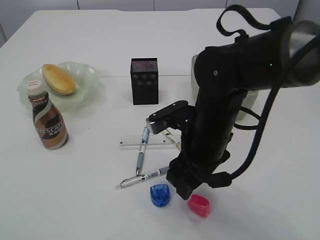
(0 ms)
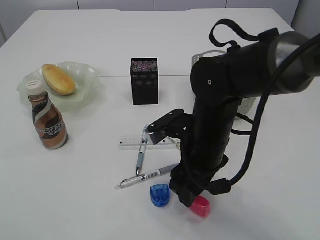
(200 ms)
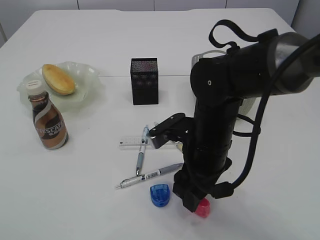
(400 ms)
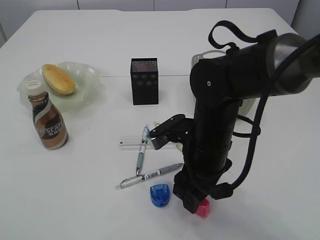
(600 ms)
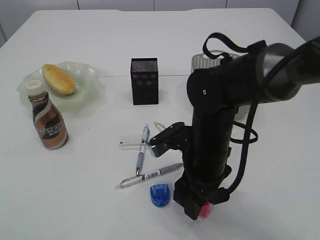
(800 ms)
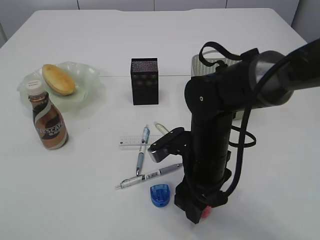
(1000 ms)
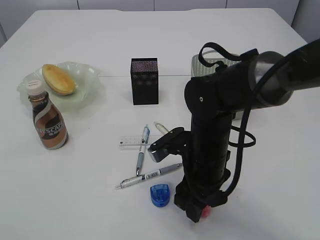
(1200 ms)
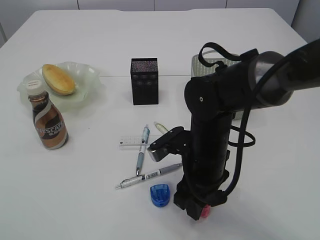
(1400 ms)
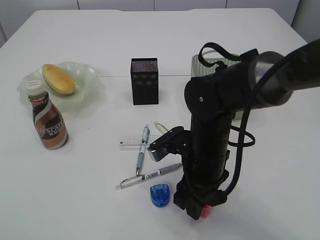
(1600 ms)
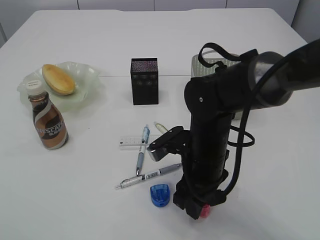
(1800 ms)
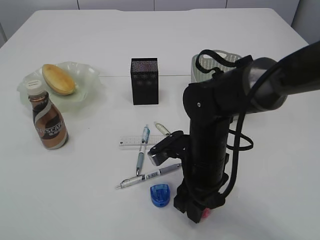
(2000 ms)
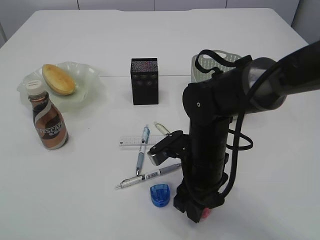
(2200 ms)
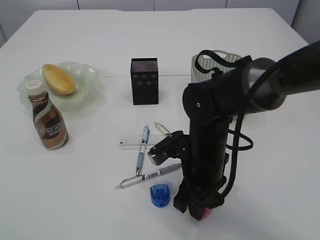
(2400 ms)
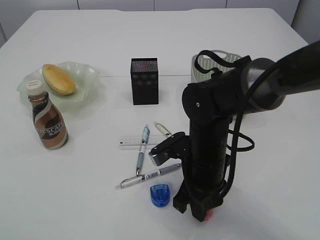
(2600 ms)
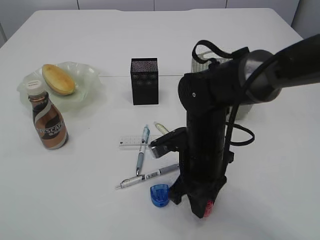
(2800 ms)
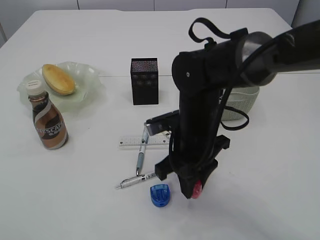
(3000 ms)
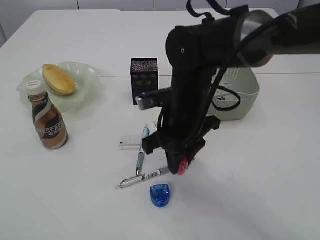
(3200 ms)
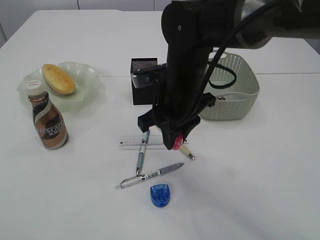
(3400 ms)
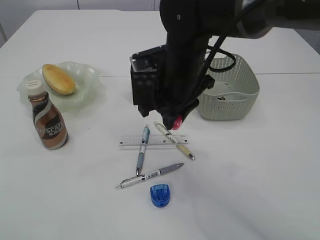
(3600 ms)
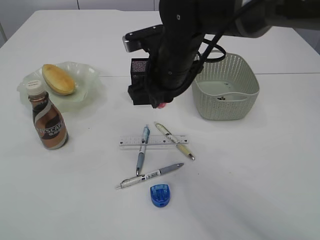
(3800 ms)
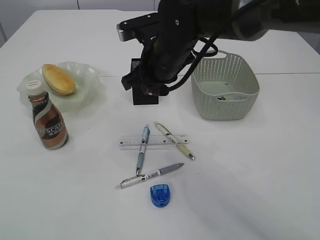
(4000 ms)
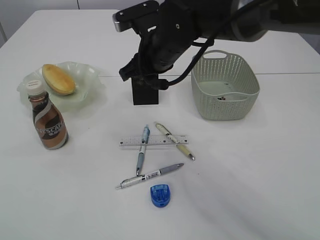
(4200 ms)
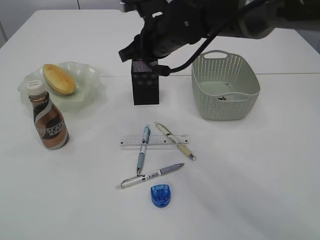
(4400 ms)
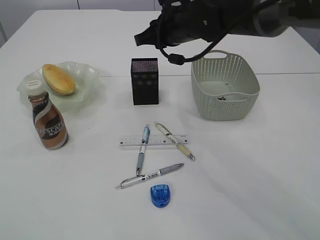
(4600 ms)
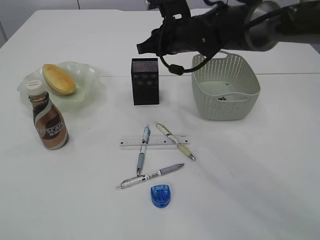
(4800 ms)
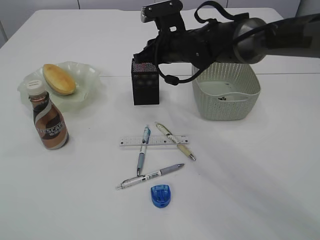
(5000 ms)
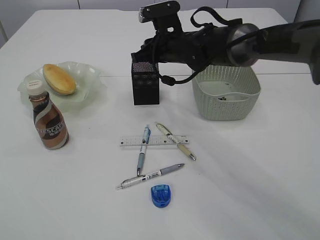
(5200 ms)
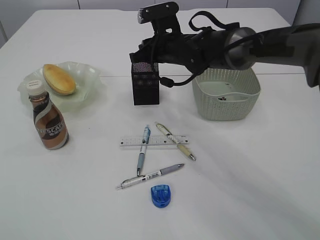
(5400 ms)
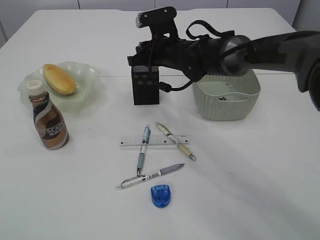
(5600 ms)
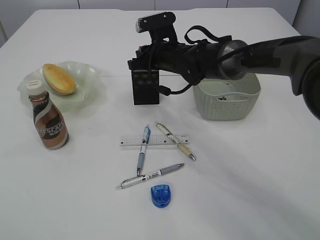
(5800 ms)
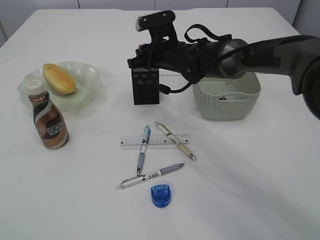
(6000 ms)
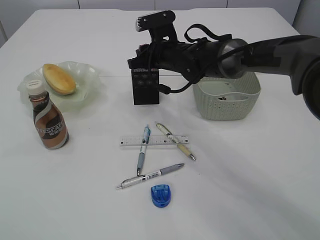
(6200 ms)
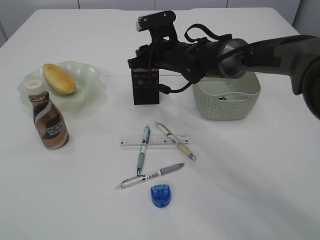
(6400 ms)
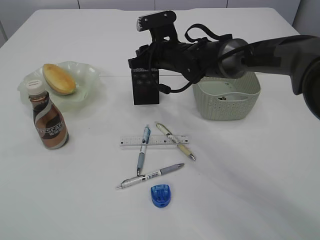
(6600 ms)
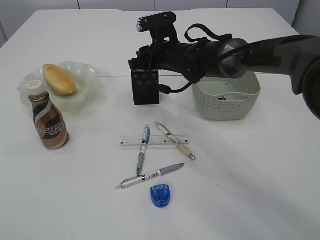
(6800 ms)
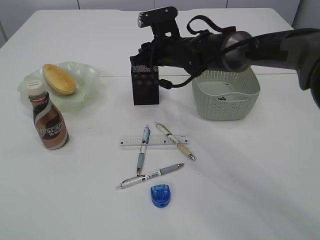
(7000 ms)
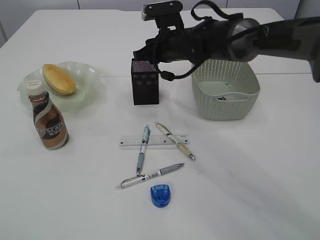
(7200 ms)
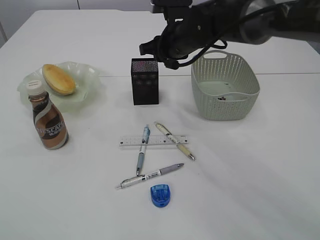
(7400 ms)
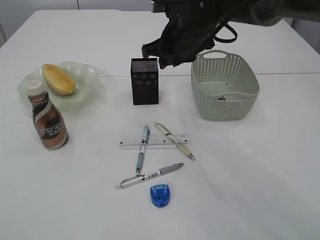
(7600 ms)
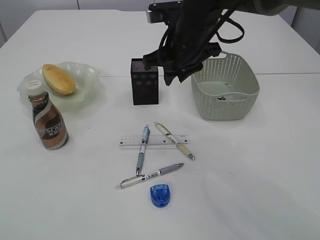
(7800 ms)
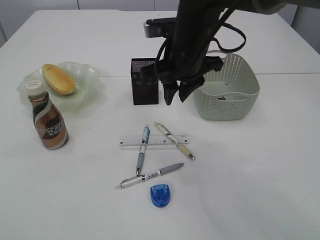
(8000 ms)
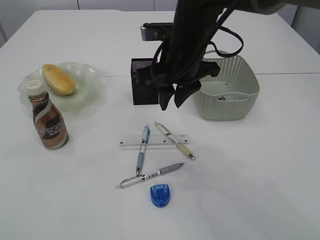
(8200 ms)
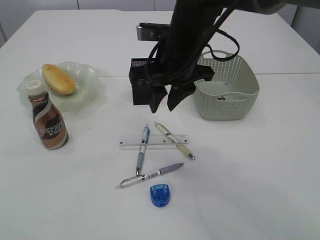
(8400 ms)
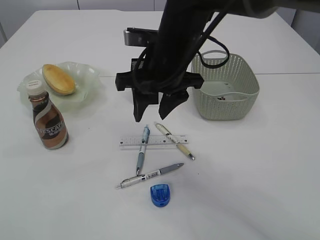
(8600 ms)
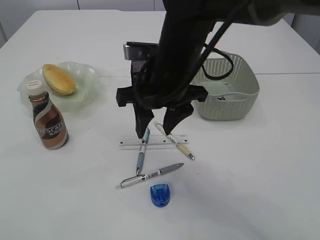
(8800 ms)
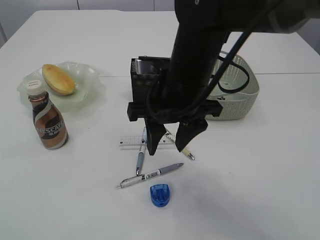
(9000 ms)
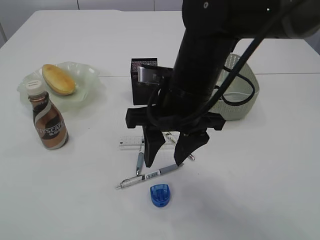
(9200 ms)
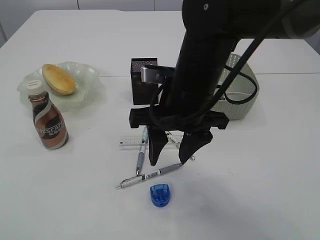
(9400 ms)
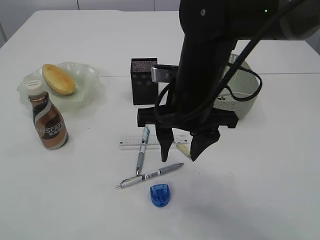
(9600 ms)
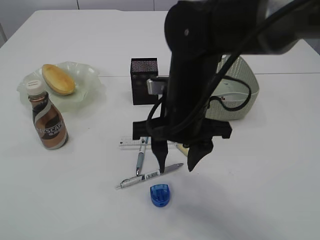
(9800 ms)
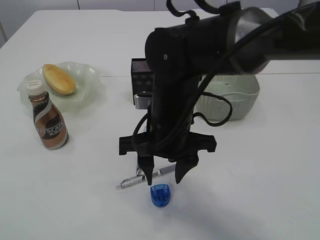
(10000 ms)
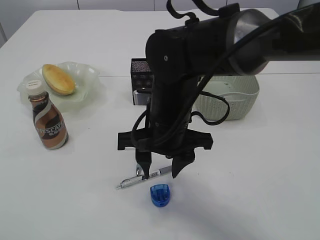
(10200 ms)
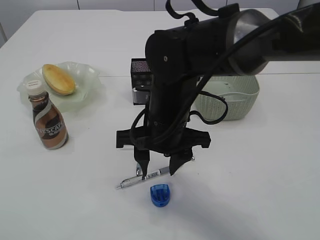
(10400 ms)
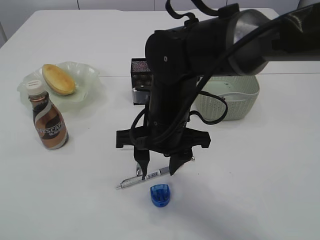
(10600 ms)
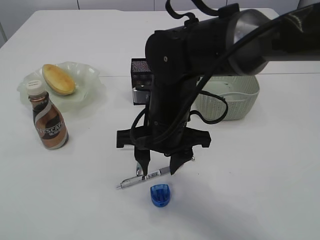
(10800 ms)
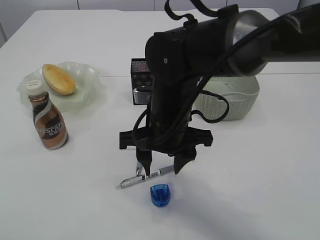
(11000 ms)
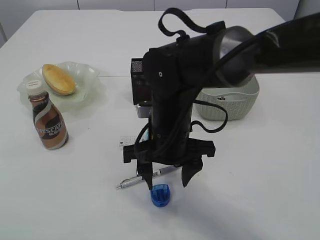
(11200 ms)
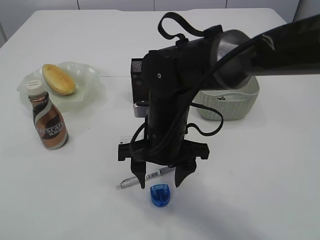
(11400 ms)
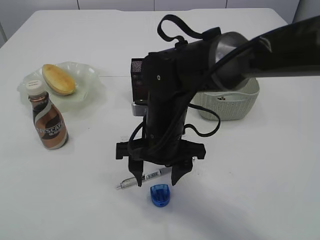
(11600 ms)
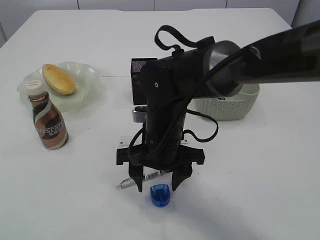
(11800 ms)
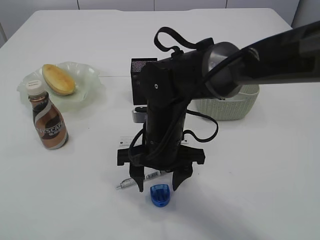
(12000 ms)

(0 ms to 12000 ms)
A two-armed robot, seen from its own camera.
Step, 0 ms - 3000 ms: Pick up the red pencil sharpener.
Step, 3200 ms - 7400 ms: Place the red pencil sharpener into the pen holder.
0 ms - 1600 ms: The grippers make only small movements.
1600 ms - 3000 ms: The right gripper closes.
3000 ms - 4400 ms: The right gripper travels forward and upward by roughly 15 cm.
4400 ms - 6000 ms: The right gripper moves downward and forward, about 10 cm.
6000 ms - 7600 ms: The right gripper travels upward and backward by roughly 10 cm.
7600 ms - 9000 ms: The right gripper heads backward, covering about 15 cm.
9000 ms - 10400 ms: The right gripper changes place by roughly 5 cm.
10400 ms - 12000 ms: The grippers stay close to where they were, moving slightly.

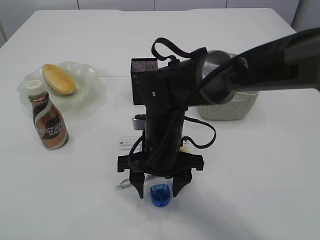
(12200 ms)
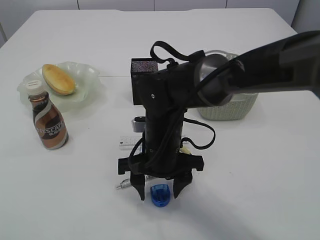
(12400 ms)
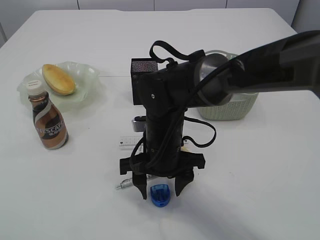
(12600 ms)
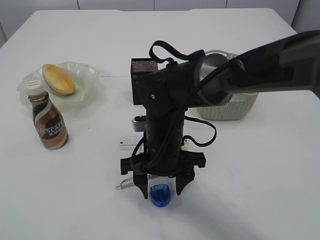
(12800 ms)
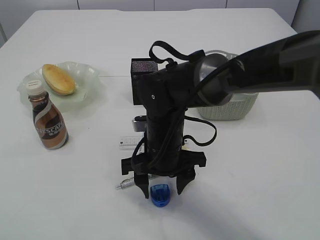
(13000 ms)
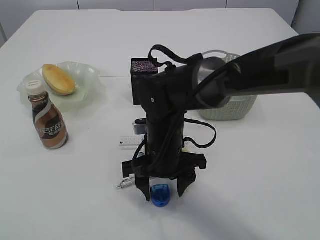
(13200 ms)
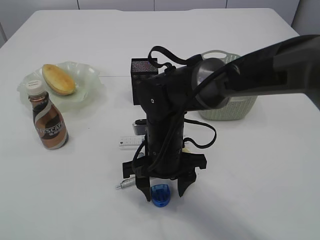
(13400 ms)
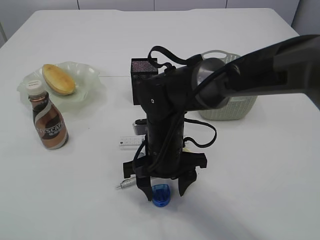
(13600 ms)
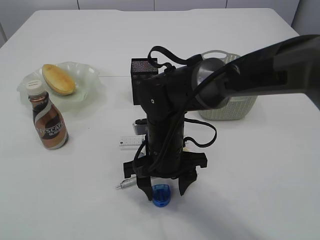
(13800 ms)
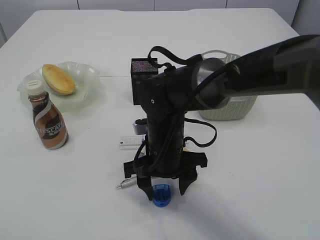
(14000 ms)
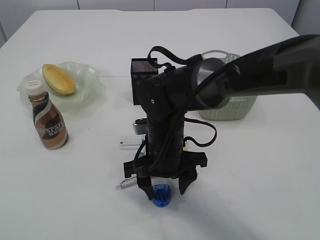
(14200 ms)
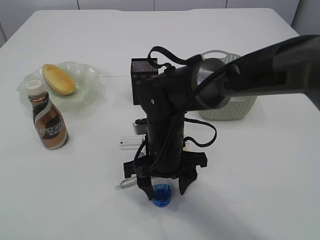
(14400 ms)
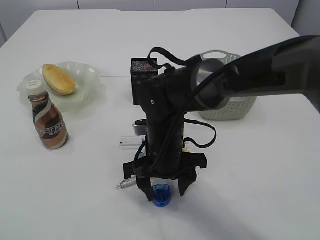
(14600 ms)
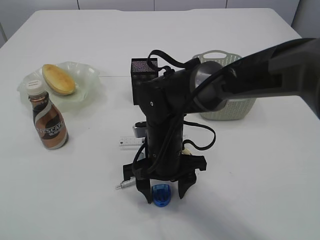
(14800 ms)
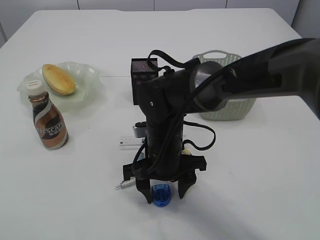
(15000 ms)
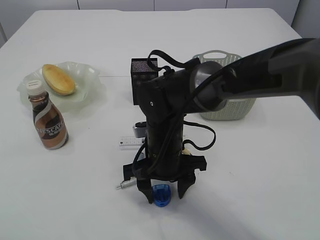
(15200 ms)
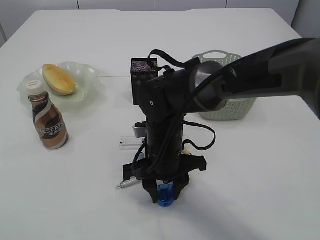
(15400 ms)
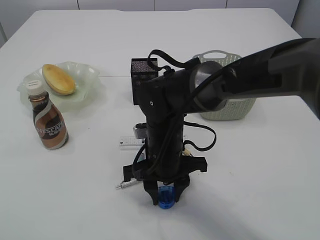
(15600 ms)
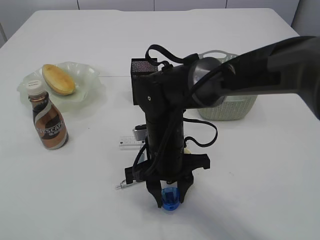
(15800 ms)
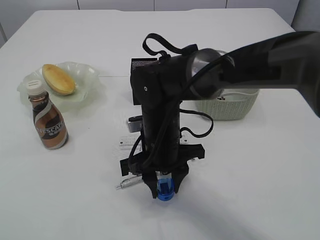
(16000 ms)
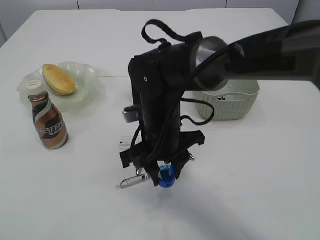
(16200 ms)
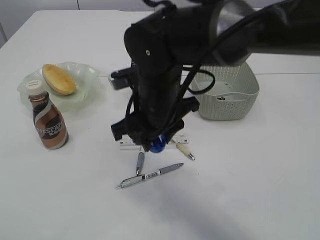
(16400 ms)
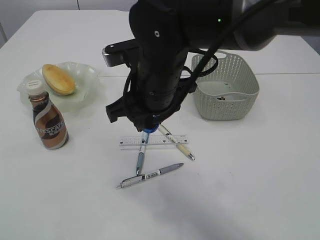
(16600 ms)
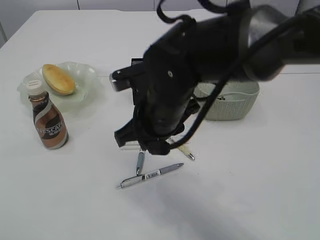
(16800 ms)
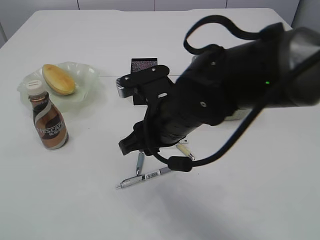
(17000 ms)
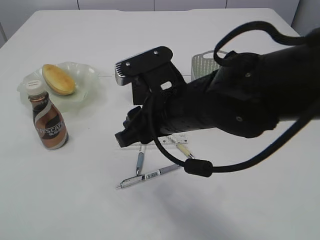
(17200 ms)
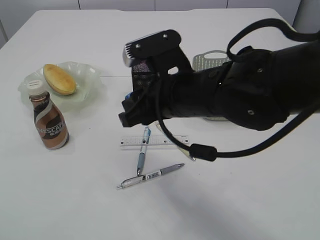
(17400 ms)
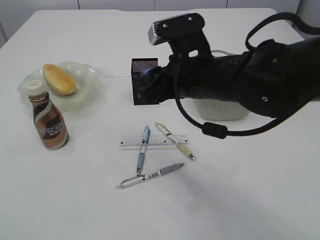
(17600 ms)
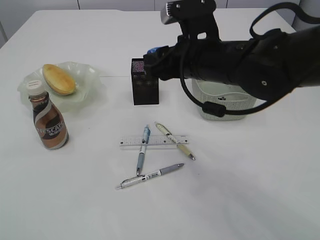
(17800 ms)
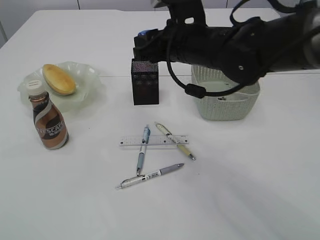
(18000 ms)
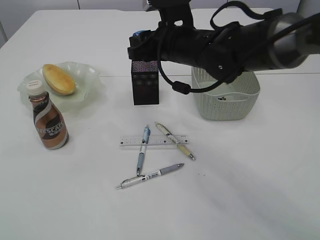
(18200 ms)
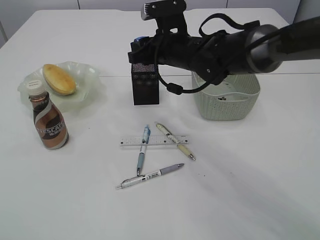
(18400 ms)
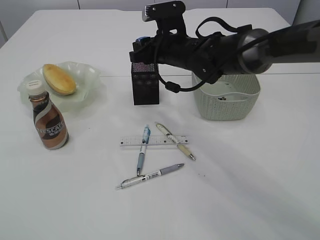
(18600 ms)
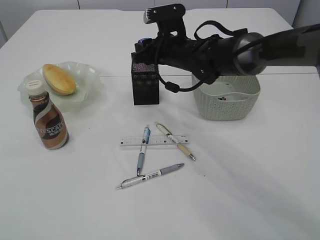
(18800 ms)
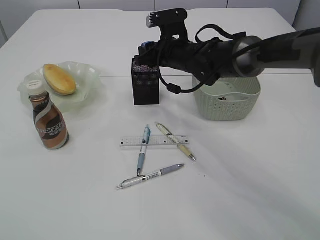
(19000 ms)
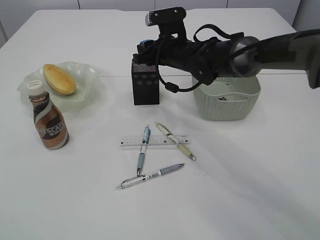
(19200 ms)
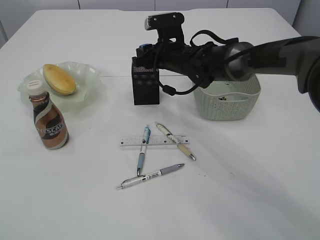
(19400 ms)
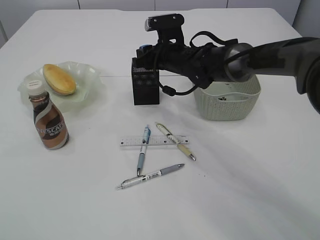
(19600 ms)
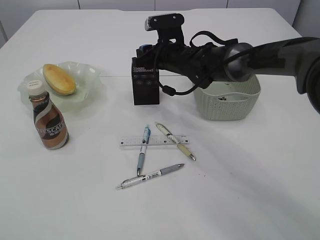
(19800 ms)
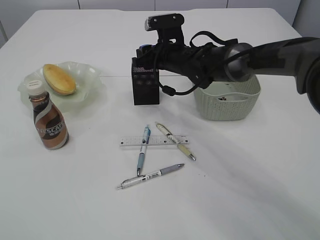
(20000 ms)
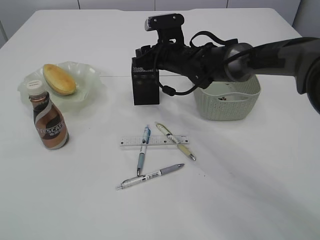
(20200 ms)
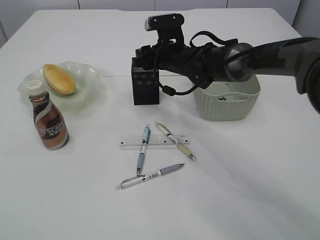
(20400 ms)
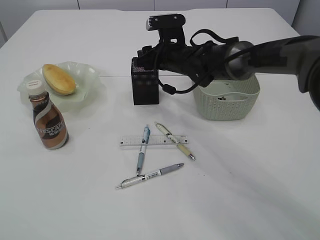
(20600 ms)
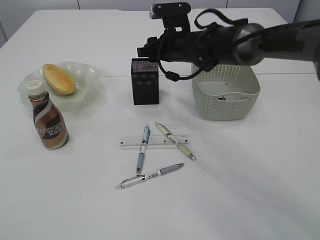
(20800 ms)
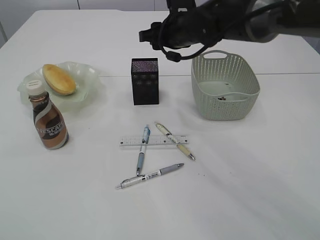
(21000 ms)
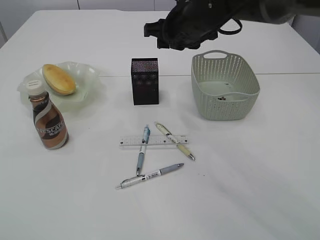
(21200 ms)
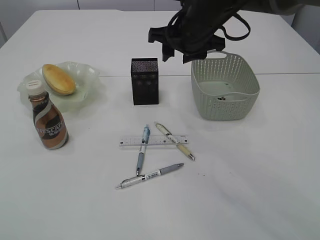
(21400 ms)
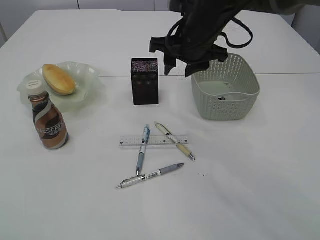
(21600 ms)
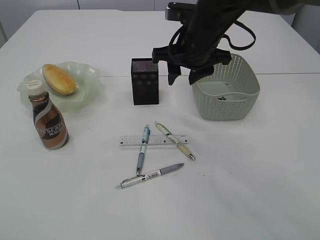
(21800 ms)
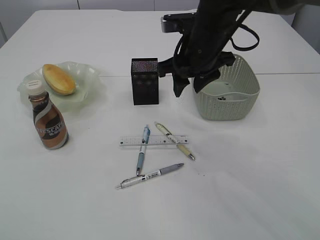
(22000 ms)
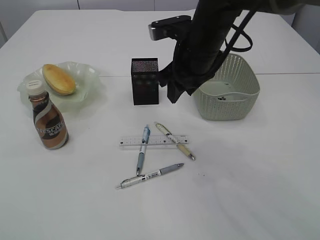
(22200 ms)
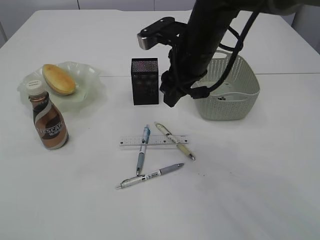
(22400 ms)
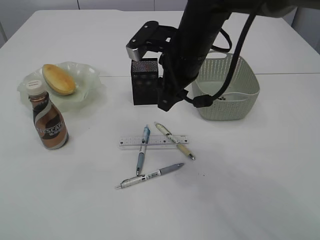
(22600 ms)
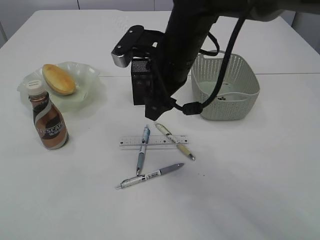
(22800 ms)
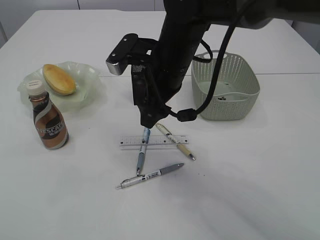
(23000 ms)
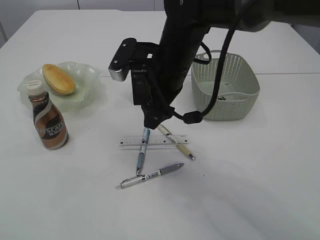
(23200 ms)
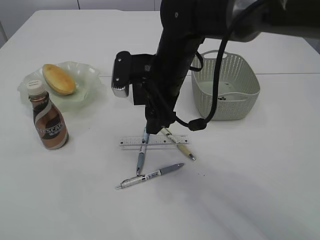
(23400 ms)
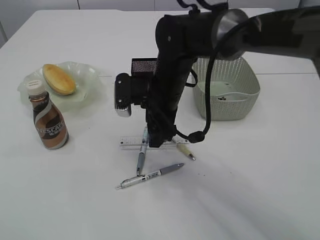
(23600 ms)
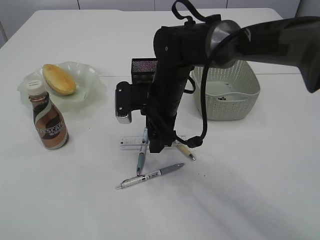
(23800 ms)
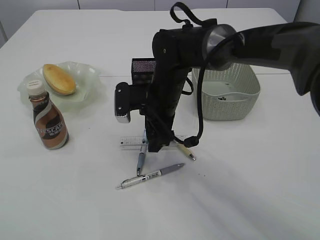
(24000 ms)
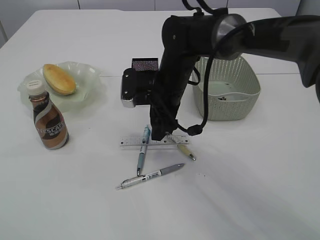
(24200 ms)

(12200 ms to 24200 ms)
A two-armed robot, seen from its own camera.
Step, 12200 ms - 16400 ms: Pick up the blue pencil sharpener.
Step, 16600 ms - 20800 ms: Place the blue pencil sharpener into the pen holder.
12200 ms - 13800 ms: The grippers make only small movements.
13800 ms - 15200 ms: The two grippers keep their place.
15200 ms - 16600 ms: The right gripper moves upward, some 15 cm, and closes its fingers.
16600 ms - 18200 ms: The right gripper travels forward and to the right by about 10 cm.
18200 ms - 19800 ms: The right gripper travels forward and downward by some 10 cm.
19800 ms - 21200 ms: The right gripper heads upward and backward, covering some 10 cm.
21200 ms - 22600 ms: The right gripper is displaced backward by roughly 5 cm.
22600 ms - 24200 ms: The right gripper moves downward, some 10 cm.
